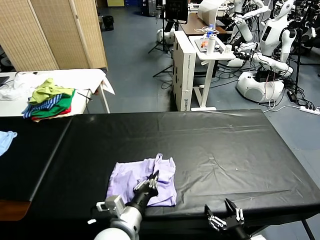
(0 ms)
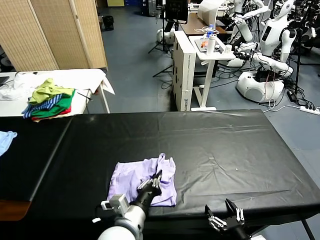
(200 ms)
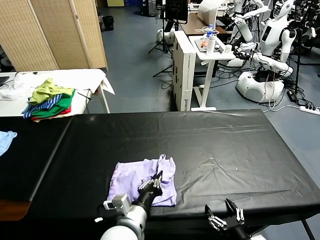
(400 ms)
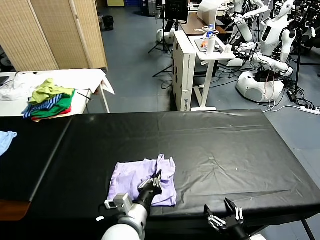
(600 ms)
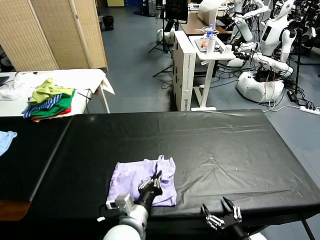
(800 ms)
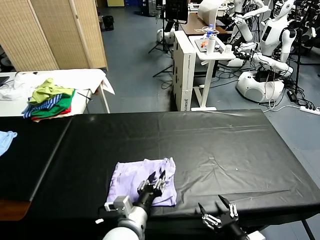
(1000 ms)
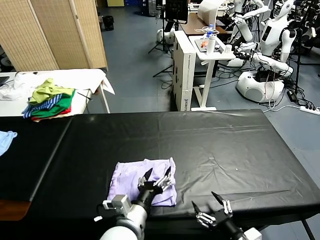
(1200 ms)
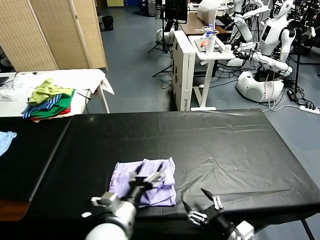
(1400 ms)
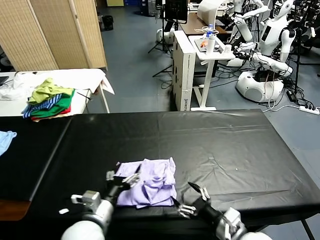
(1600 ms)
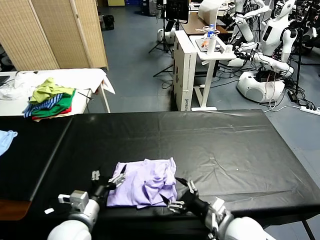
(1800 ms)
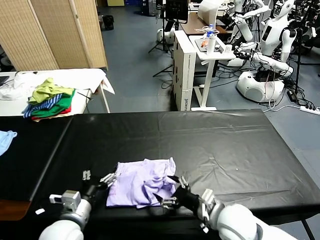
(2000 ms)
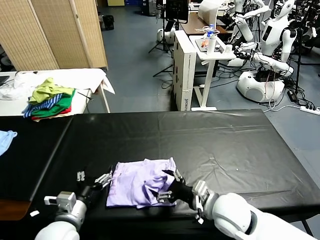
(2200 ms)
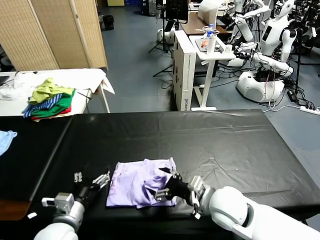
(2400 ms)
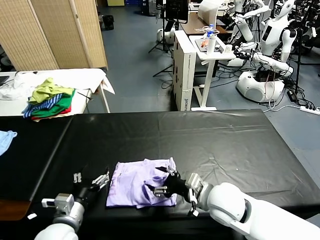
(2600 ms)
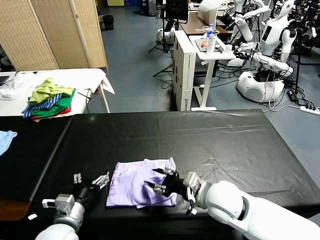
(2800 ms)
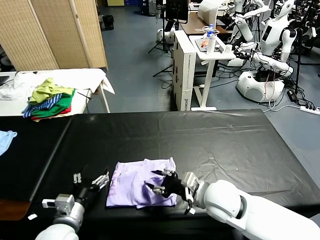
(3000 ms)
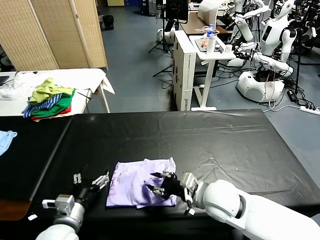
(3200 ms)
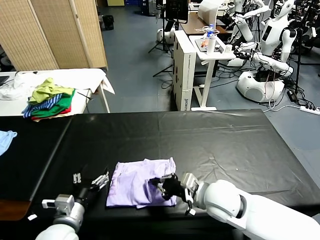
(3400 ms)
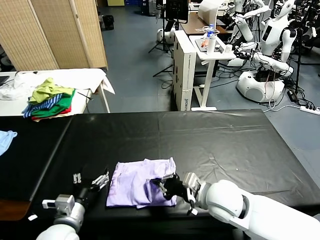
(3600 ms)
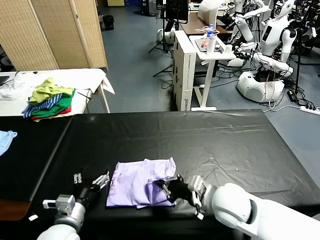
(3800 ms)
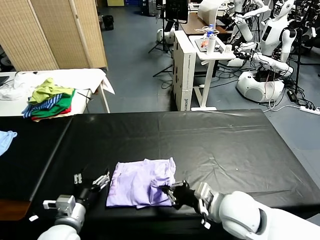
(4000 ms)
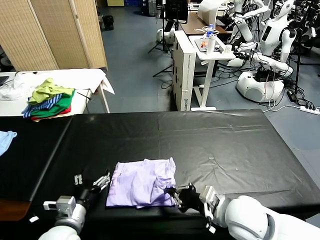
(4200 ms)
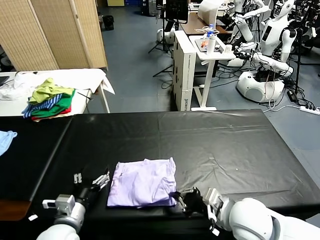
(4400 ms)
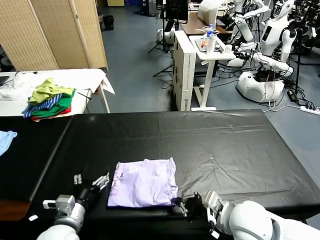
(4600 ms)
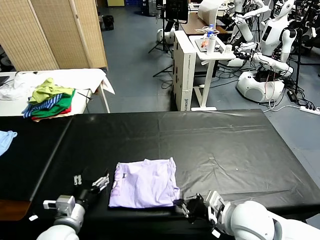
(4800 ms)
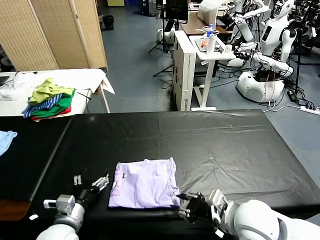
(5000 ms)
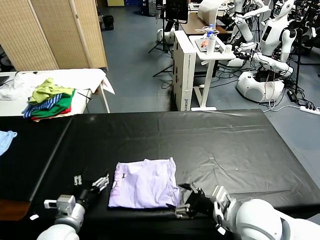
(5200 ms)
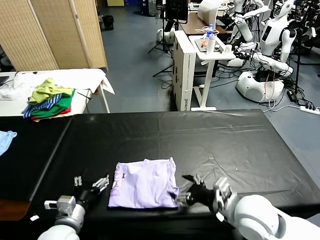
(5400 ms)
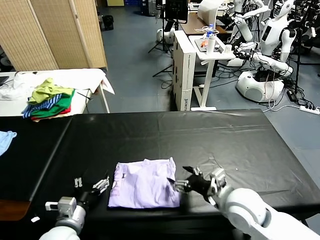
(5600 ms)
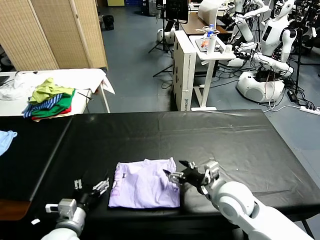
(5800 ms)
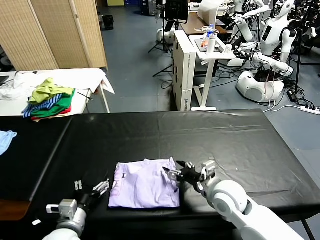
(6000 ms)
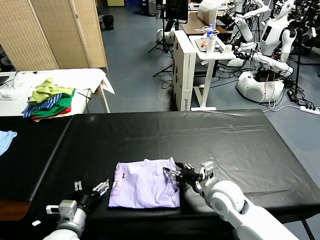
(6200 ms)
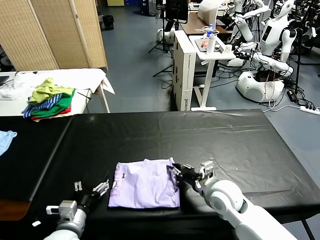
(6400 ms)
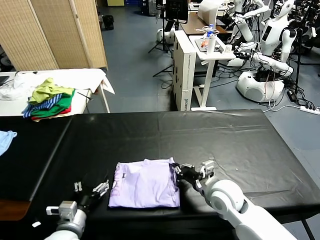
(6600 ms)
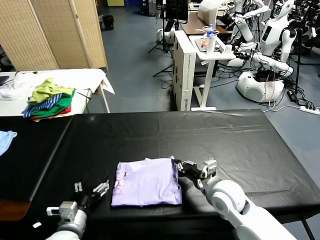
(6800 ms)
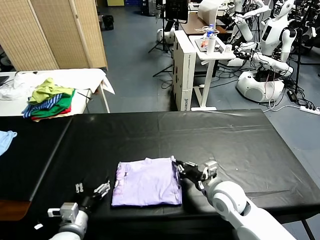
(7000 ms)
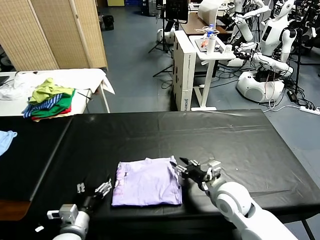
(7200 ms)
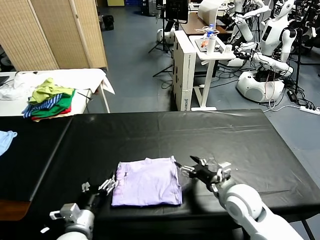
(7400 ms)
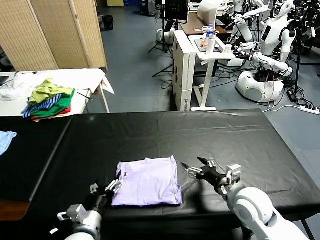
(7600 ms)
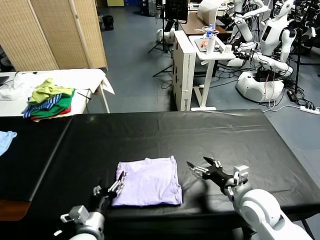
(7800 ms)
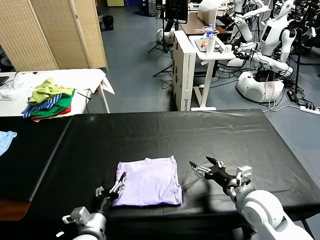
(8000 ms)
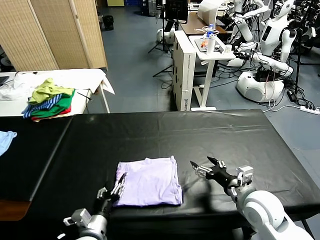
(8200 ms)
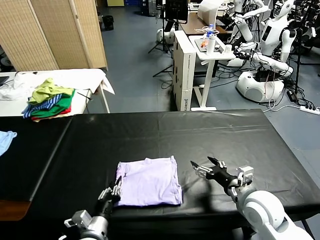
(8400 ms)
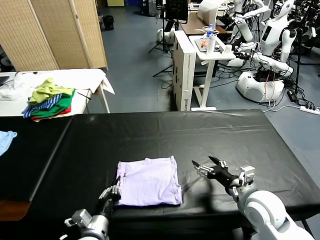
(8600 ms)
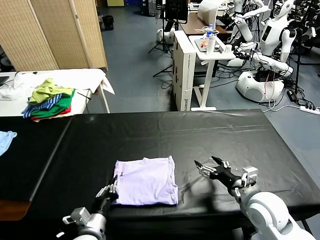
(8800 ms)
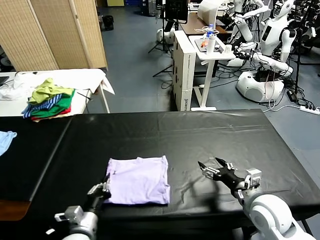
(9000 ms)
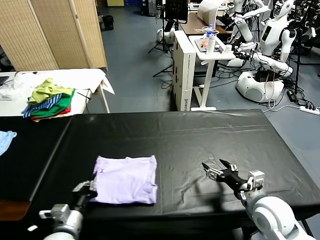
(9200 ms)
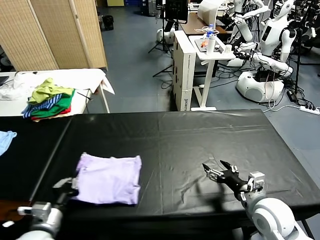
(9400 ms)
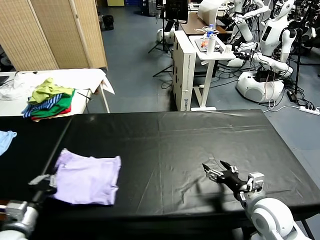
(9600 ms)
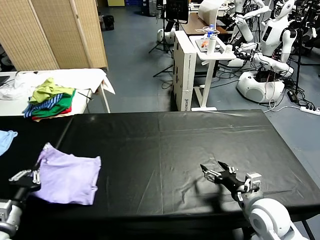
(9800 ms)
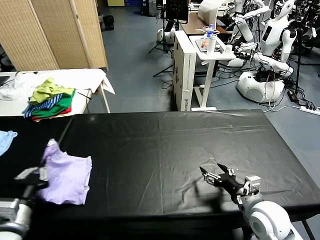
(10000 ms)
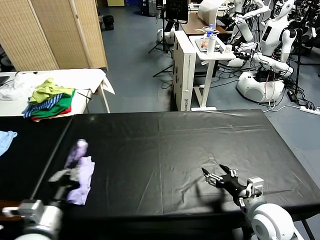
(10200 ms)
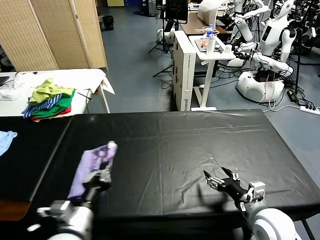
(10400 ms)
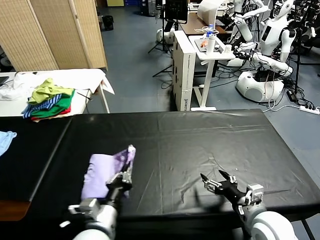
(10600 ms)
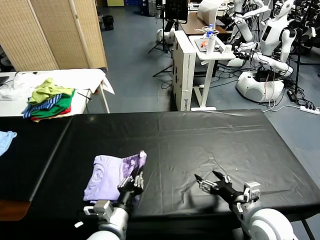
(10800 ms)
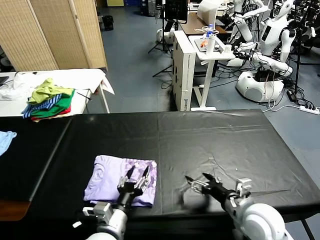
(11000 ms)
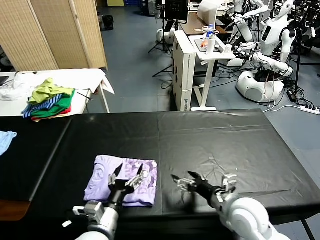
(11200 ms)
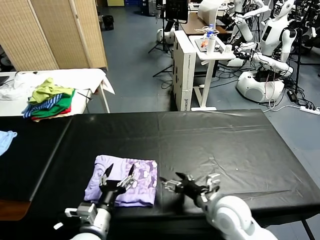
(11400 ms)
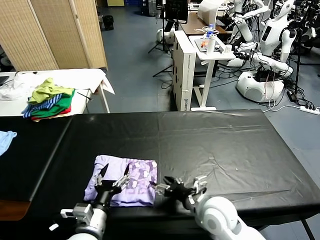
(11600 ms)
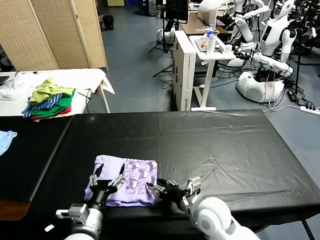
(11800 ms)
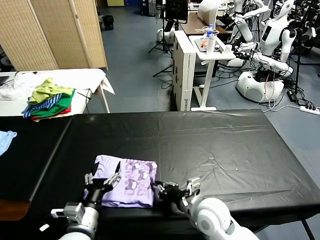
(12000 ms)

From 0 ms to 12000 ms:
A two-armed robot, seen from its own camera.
Task of the whole recording: fold and organize the clothes.
Step, from 1600 ms to 11000 ms: Flip the folded clothes over with left gripper.
From 0 ms to 1600 ms: The right gripper travels forward by about 10 cm. The left gripper goes roughly 10 cm to the left, and opens up.
From 1600 ms to 3000 ms: The right gripper is displaced forward and to the left by roughly 15 cm, and closes. The left gripper moves to the left, approximately 5 cm.
From 3000 ms to 4400 ms: The right gripper is displaced backward and to the right by about 10 cm, and closes.
From 4400 ms to 6000 ms: The right gripper moves forward, roughly 10 cm, and opens its fingers.
From 6000 ms to 7600 ms: The right gripper heads to the right, covering approximately 5 cm, and closes, then reopens.
From 7600 ms to 9000 ms: The left gripper closes its fingers.
From 9000 ms to 10400 ms: The left gripper shifts approximately 10 cm upward, and moves some 15 cm to the left and comes back.
From 10400 ms to 12000 ms: The left gripper moves downward, about 5 cm, goes to the right and returns, about 10 cm each way, and opens up. The right gripper travels to the left by some 15 cm, and closes up.

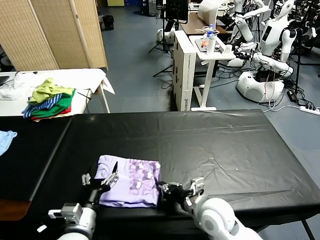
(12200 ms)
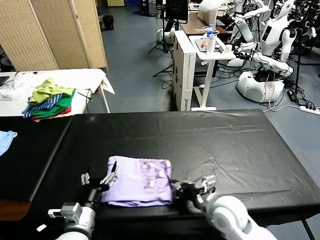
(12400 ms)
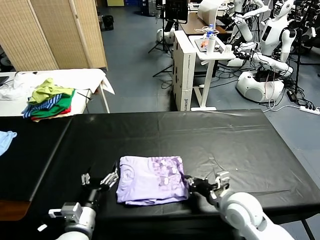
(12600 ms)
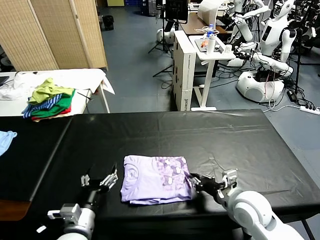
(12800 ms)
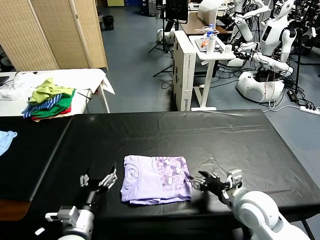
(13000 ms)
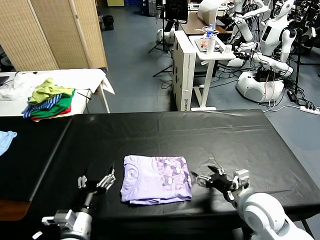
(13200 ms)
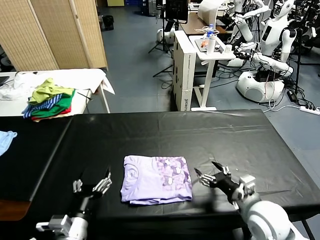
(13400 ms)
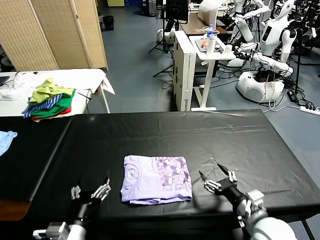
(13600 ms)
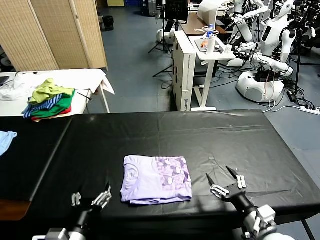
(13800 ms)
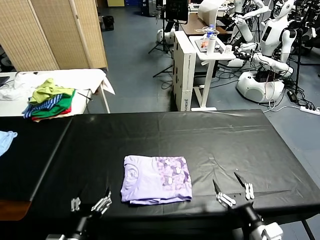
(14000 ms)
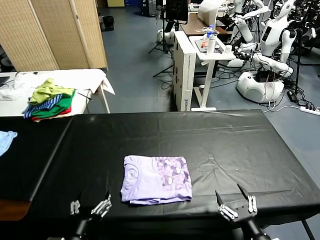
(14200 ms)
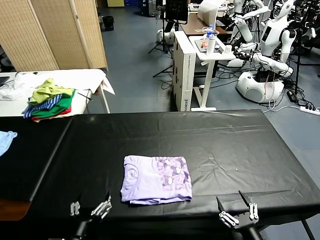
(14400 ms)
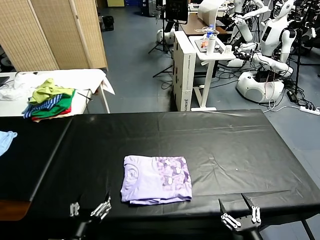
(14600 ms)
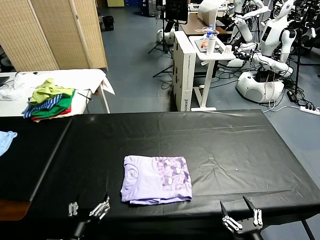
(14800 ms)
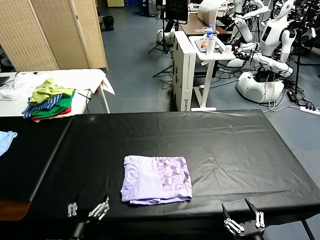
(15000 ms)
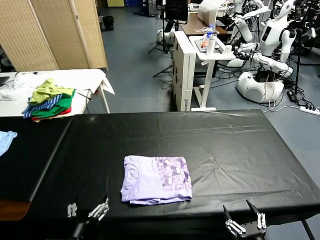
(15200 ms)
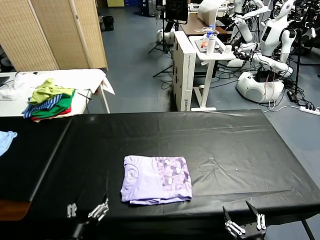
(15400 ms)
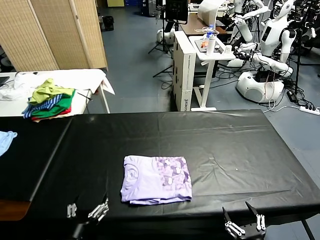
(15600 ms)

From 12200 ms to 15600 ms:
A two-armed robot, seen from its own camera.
Task of the whole recording: fold and organize the clothes.
From 12200 ms to 13800 ms: The right gripper travels to the right and backward by roughly 15 cm, and opens its fingers. The left gripper goes roughly 5 cm backward.
From 13800 ms to 15600 ms: The right gripper heads backward, covering roughly 10 cm.

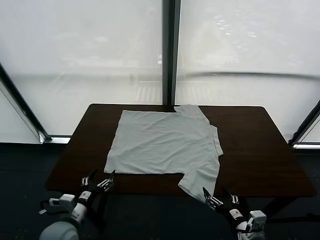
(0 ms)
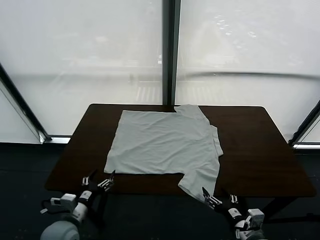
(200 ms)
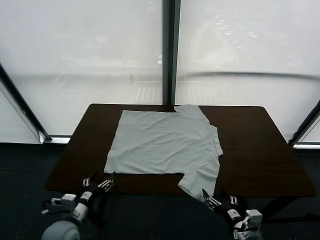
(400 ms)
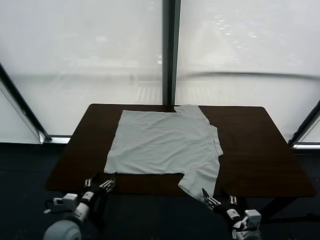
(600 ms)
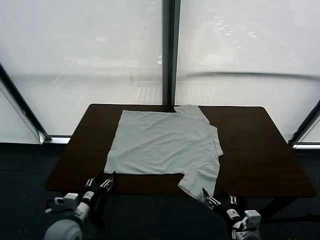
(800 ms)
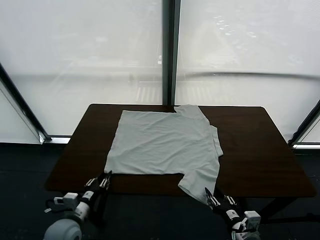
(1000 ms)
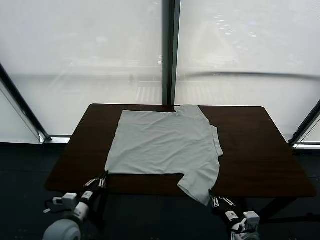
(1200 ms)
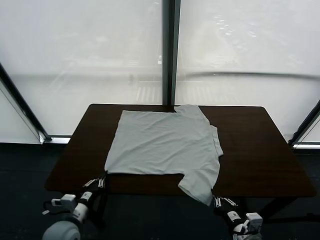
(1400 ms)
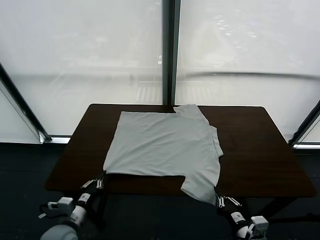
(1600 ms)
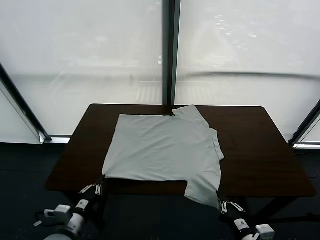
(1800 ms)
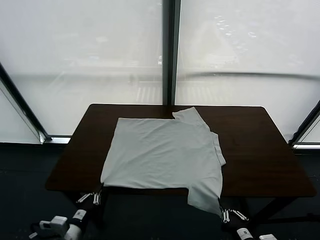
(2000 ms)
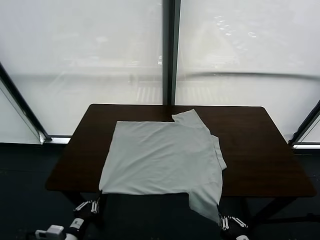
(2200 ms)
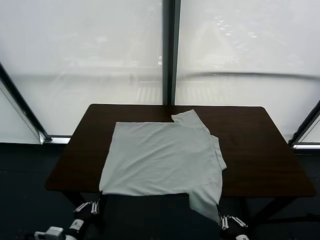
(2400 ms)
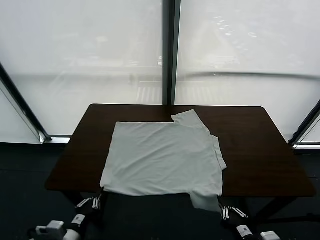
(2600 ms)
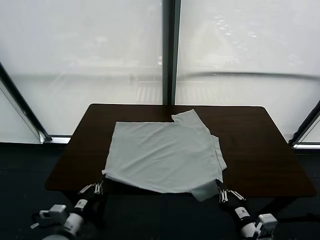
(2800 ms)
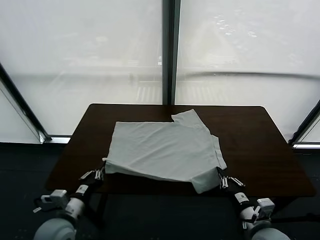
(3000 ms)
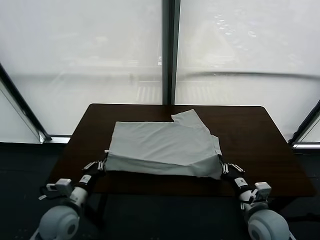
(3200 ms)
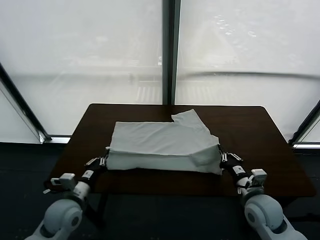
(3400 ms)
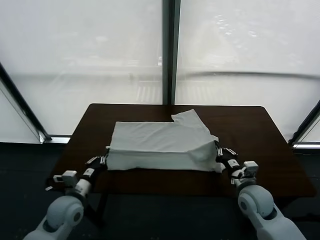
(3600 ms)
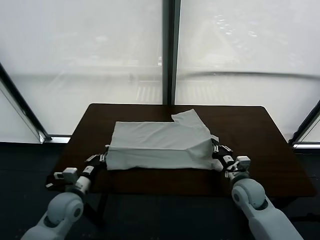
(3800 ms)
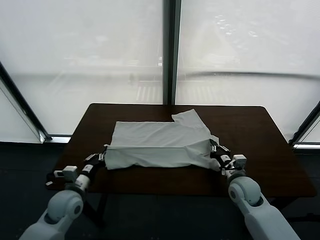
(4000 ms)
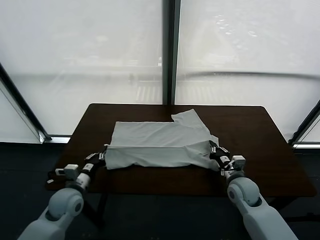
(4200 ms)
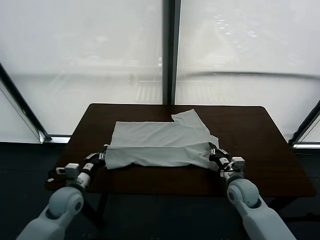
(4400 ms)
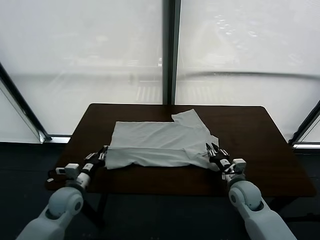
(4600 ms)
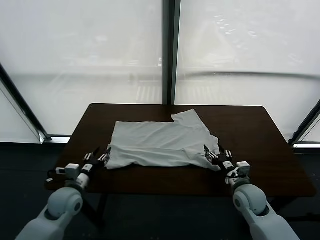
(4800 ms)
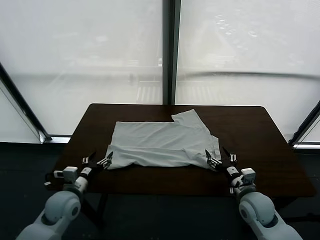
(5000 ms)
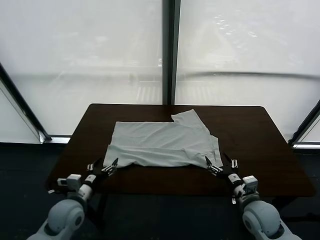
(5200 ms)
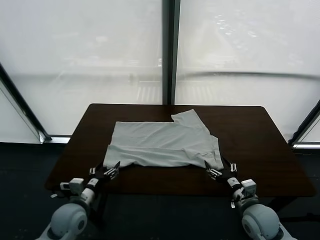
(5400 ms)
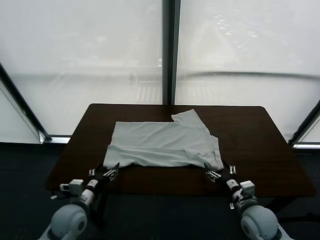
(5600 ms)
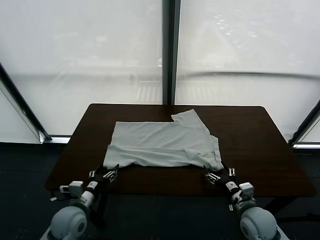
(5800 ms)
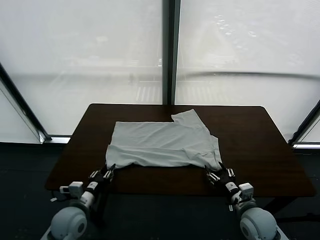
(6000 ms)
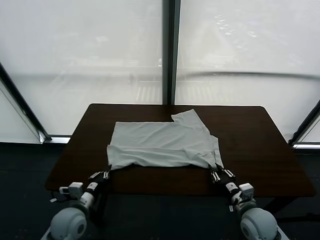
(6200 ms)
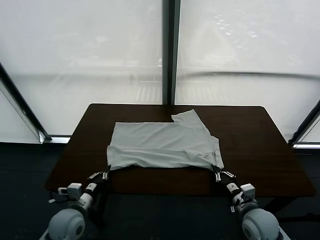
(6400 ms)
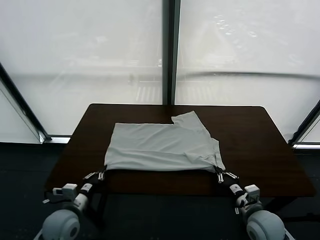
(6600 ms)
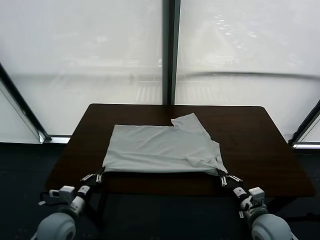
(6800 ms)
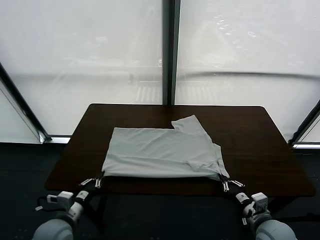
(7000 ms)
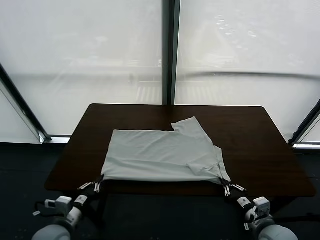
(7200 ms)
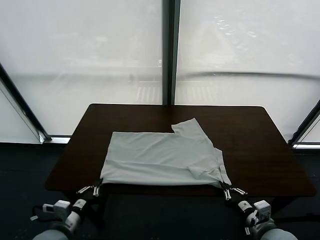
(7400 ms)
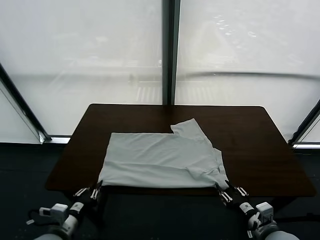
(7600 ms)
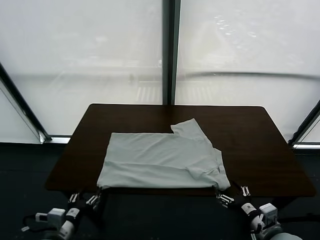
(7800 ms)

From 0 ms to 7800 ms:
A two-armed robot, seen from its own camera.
Task of the whole recording: fold and organize the clothes.
Step, from 0 ms to 2400 ms: use both grippers simultaneously to clamp the lower edge of the clothing fabric.
Step, from 2600 ms to 5000 ms: use both grippers to drag the lower edge of the fabric forward and fold it over the upper edge.
From 1600 ms to 3200 ms: The left gripper travels forward by about 10 cm, while the right gripper goes roughly 20 cm forward.
From 3200 ms to 4600 ms: The left gripper is displaced forward by roughly 5 cm, and opens up. The right gripper opens.
From 4600 ms to 6200 ms: The grippers both shift backward by roughly 5 cm. The right gripper closes; the left gripper closes.
From 6200 ms to 7800 ms: The right gripper heads upward and backward, covering approximately 10 cm, and opens. The left gripper heads backward, covering some 10 cm, and opens.
